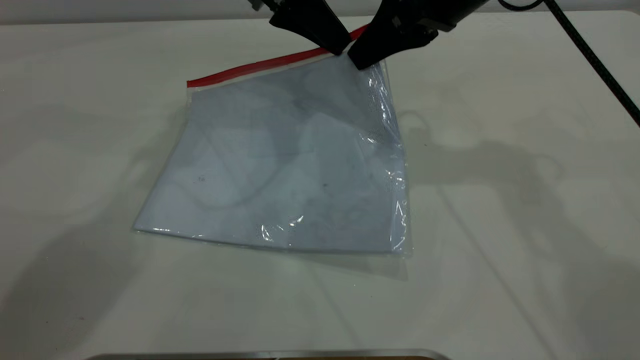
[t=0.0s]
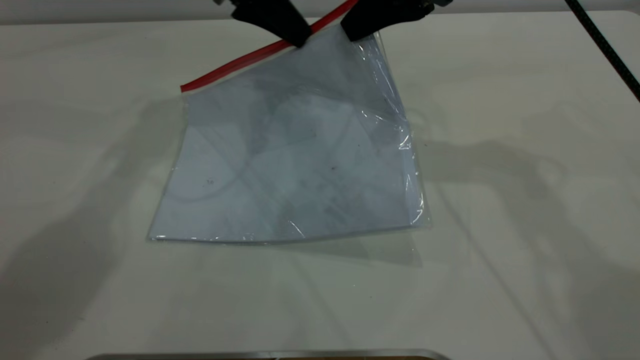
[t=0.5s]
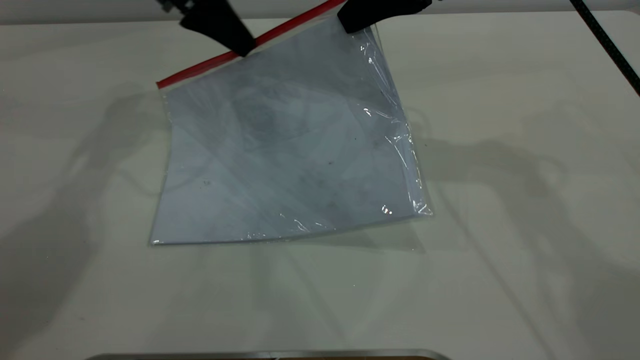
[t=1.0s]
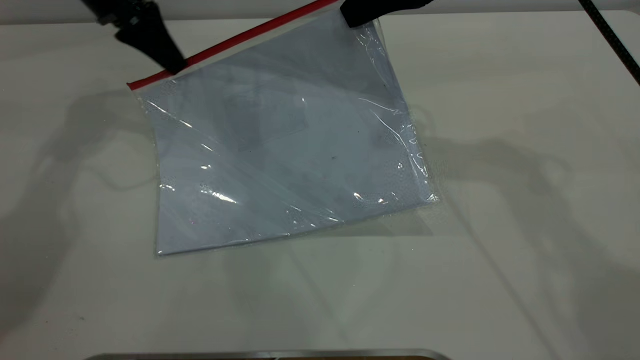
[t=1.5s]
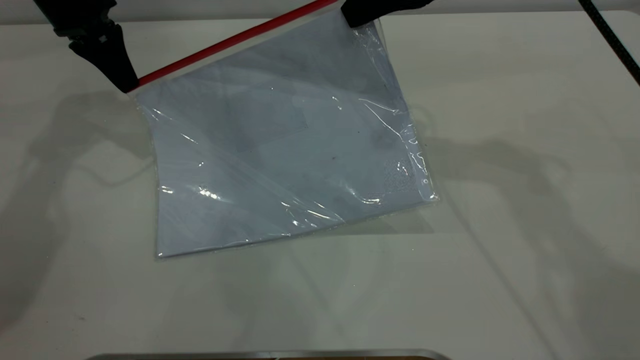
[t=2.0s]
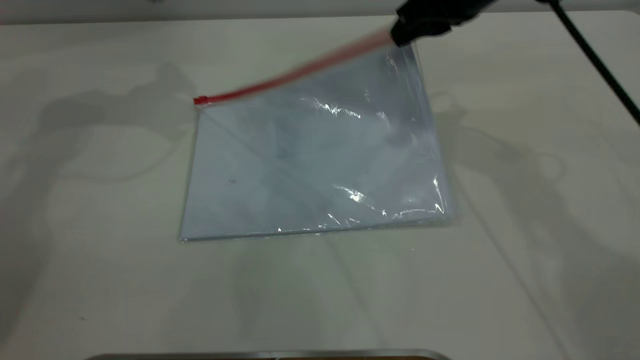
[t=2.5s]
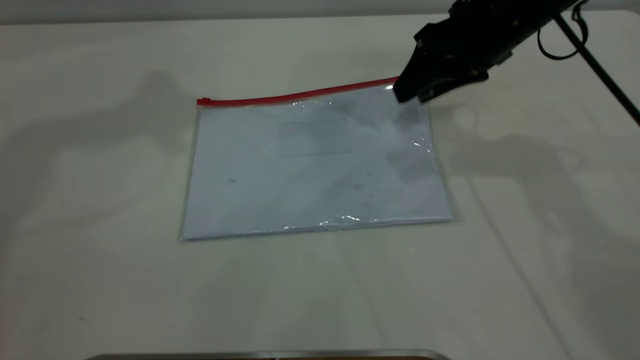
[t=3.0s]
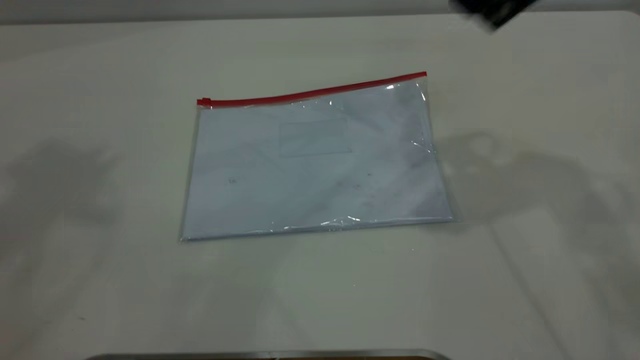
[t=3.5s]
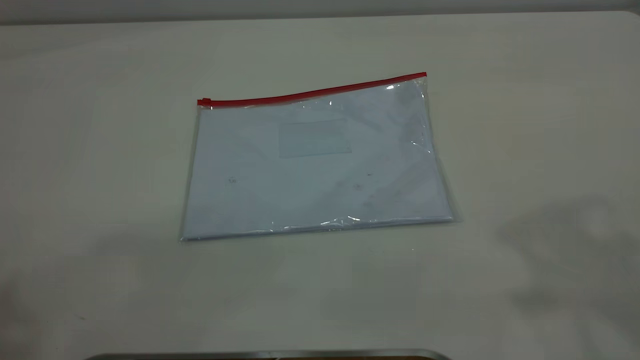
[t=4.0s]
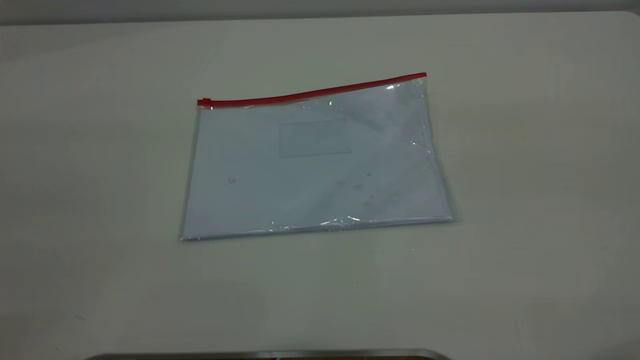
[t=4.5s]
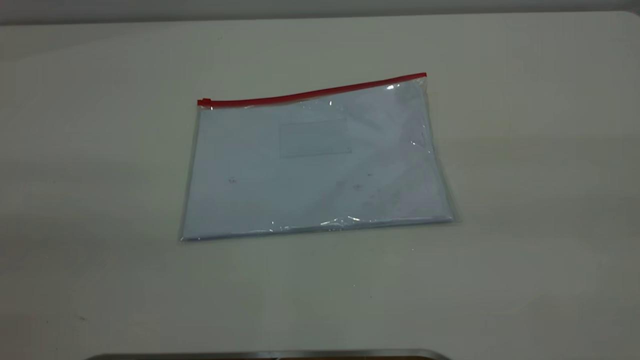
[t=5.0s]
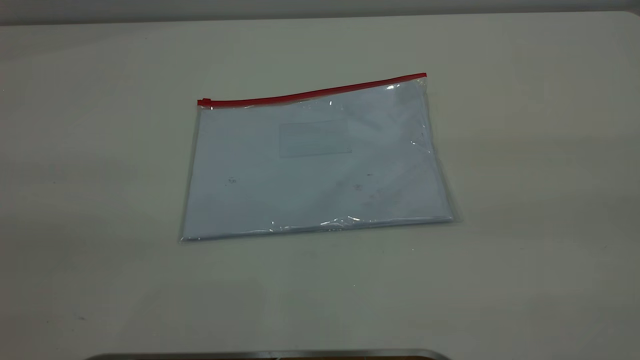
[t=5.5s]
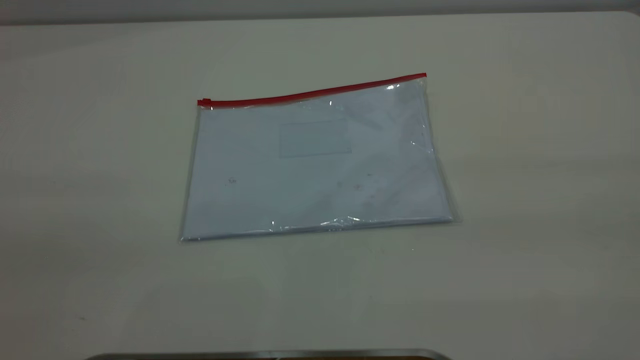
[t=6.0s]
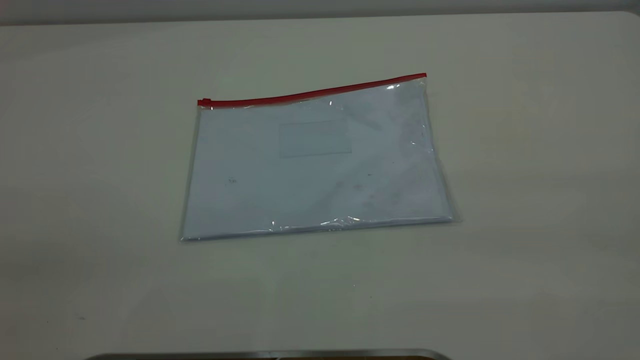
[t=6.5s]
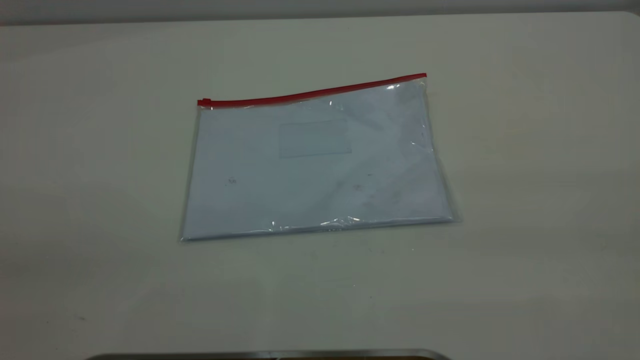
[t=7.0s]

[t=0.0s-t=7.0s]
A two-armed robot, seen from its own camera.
Step, t=0.0s to t=2.0s: Pulling up the zipper on the transparent plastic bag with the left gripper to close it.
Step, t=2.5s to t=3.5s: Place the transparent plastic bag.
t=0.0s to t=2.0s: The left gripper is displaced to the left by about 20 cm.
t=2.0s to t=3.5s: The right gripper heads upward, backward and to the right, covering roughly 10 cm, and opens its fingers, while the left gripper is displaced upward and backward by approximately 50 cm, and opens.
t=3.5s to t=5.0s: The right gripper moves backward, approximately 25 cm.

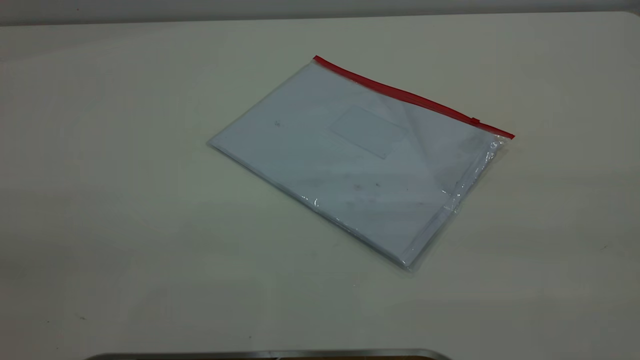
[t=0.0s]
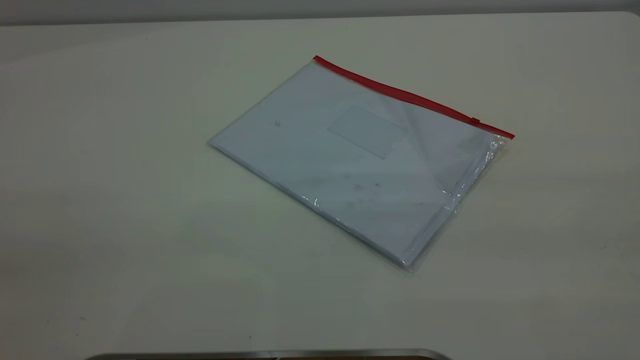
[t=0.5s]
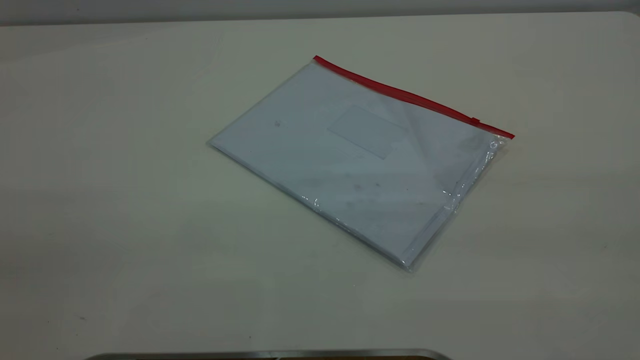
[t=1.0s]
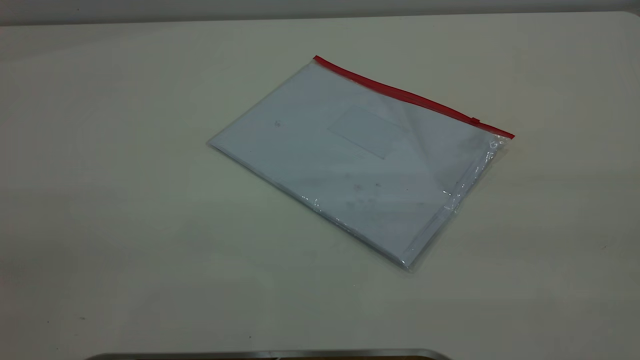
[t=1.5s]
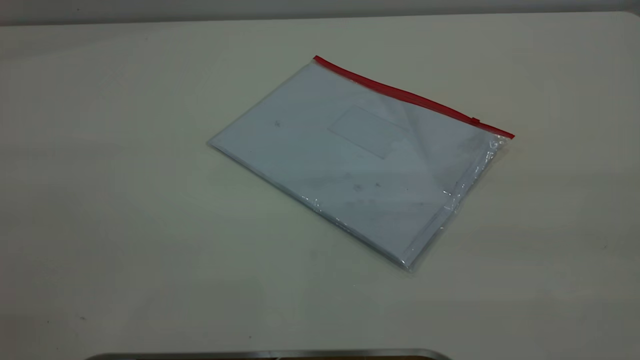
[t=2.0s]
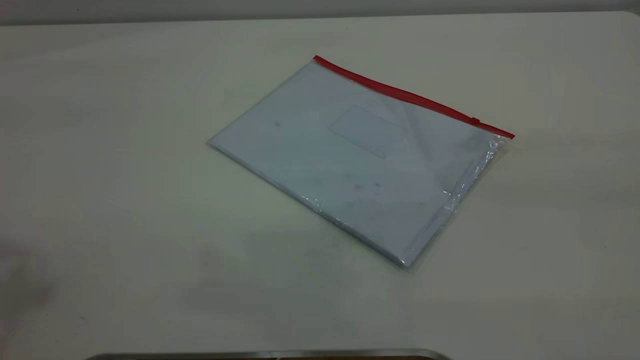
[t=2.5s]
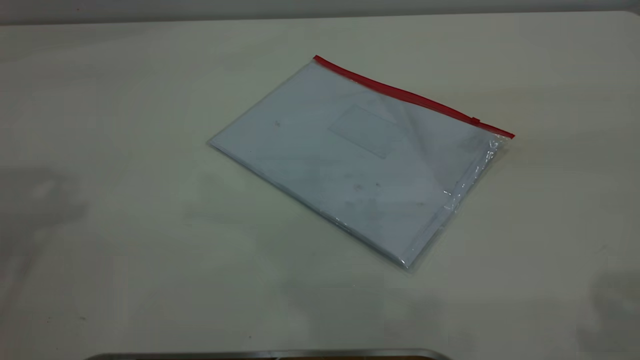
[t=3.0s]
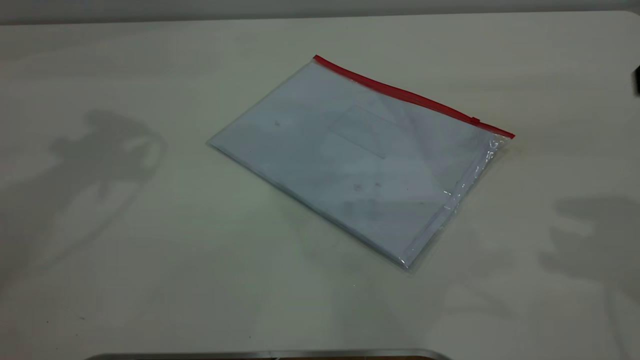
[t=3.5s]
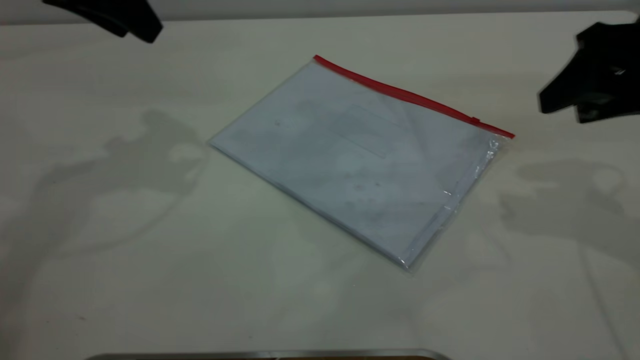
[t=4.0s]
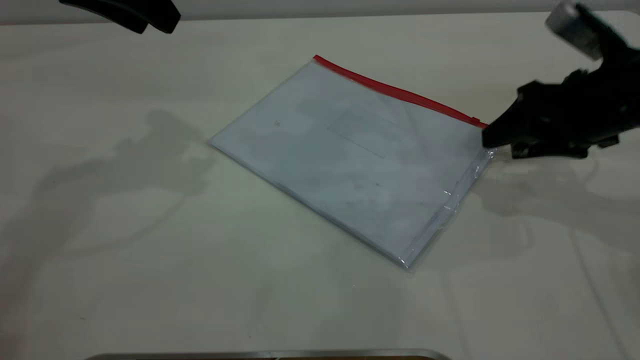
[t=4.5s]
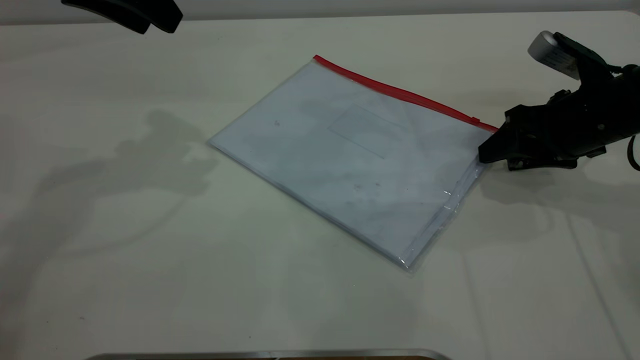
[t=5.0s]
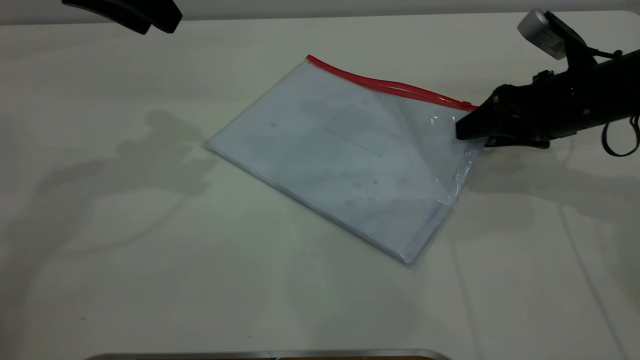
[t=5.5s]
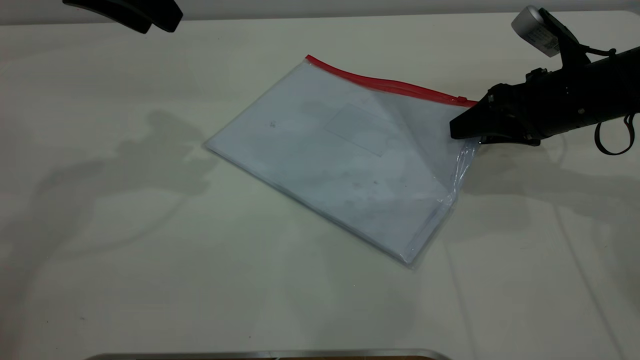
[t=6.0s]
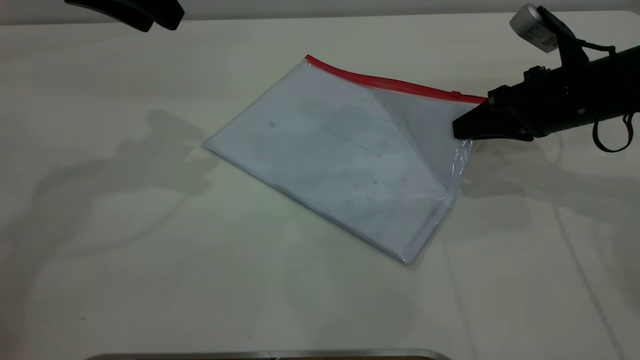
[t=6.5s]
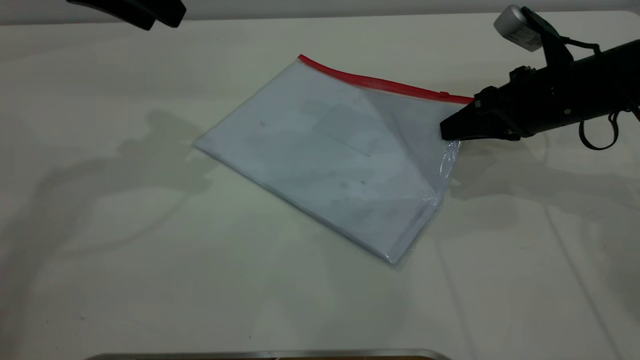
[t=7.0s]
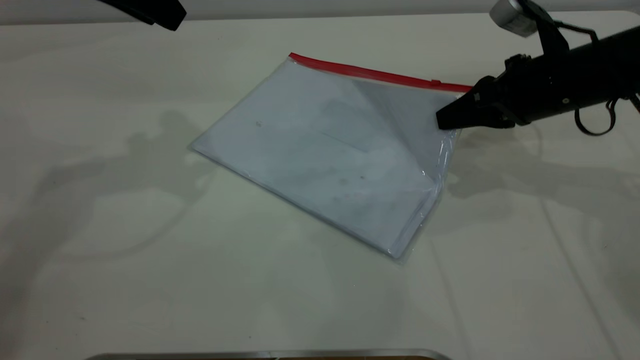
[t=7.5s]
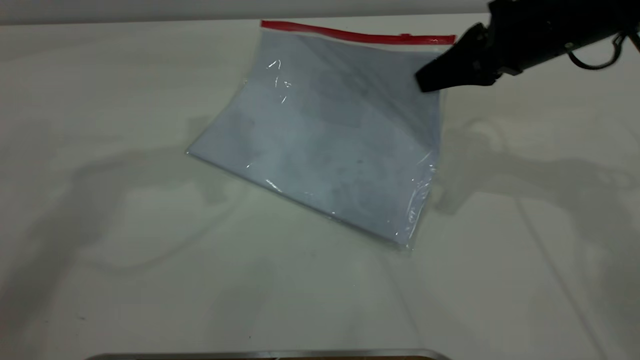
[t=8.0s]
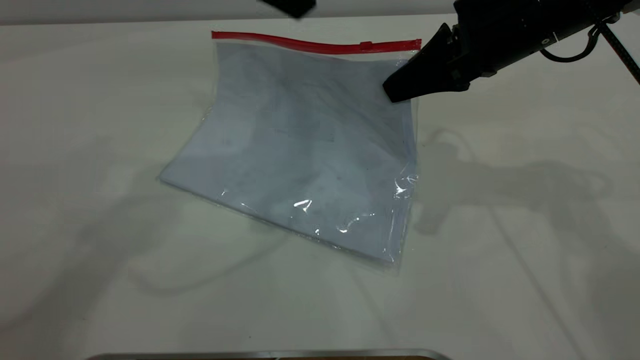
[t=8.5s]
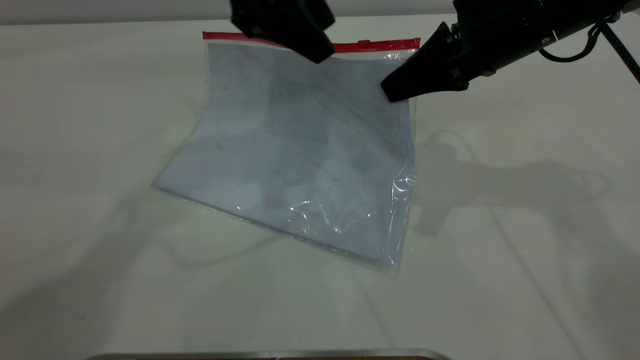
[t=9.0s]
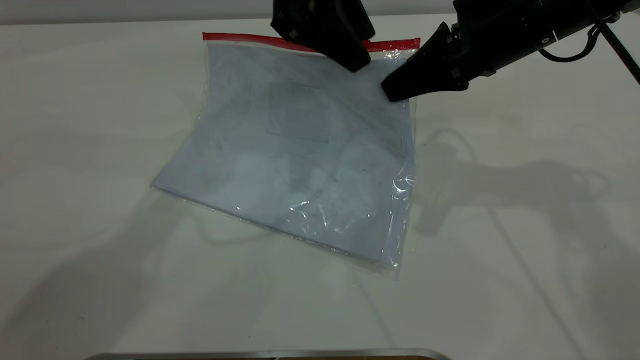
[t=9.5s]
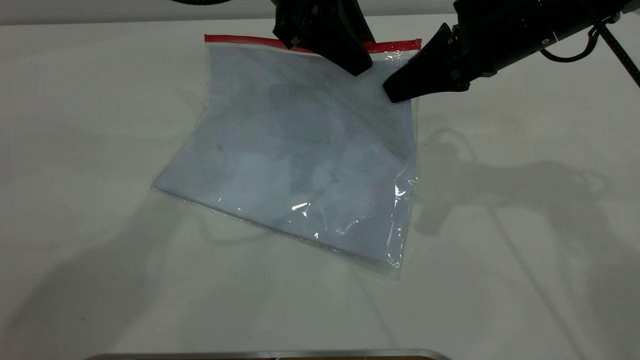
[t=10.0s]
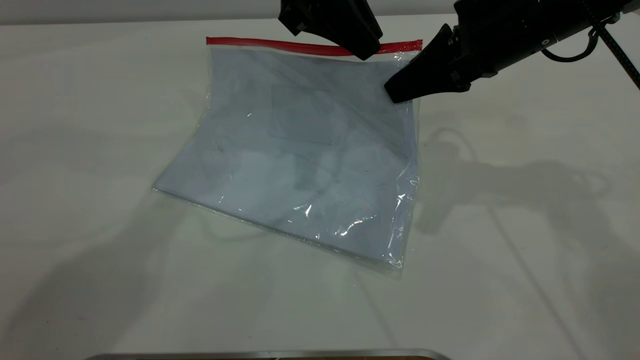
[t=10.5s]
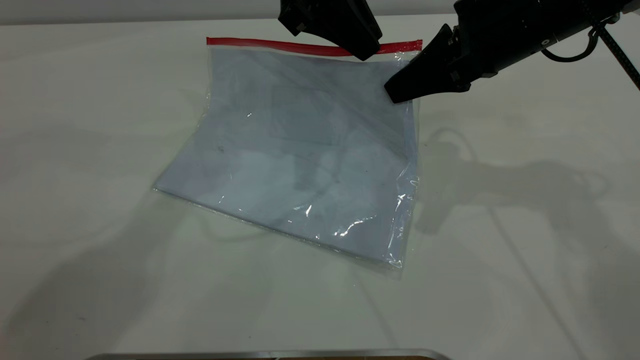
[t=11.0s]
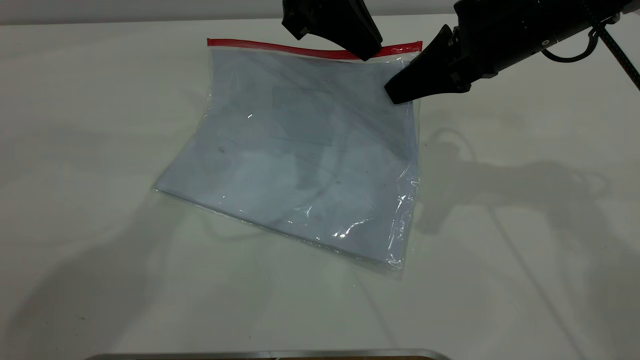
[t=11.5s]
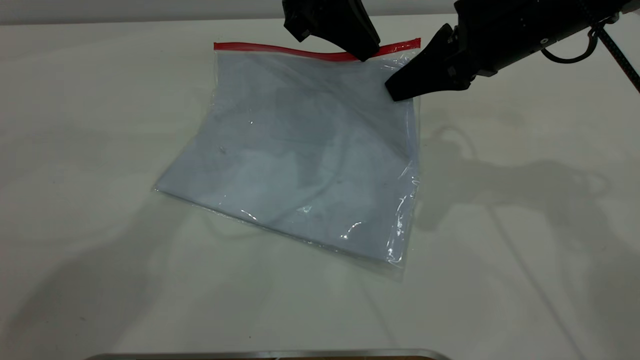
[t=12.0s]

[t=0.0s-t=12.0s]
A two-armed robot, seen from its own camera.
Step, t=0.0s to t=8.0s: Pick up the transparent plastic bag with the right gripper.
t=2.0s to t=4.0s: Both grippers move forward and downward, some 35 cm. The right gripper opens its fingers.
t=4.0s to t=6.0s: The right gripper goes approximately 10 cm downward and forward.
t=6.0s to t=8.0s: The left gripper heads to the right, covering about 5 cm; the right gripper shifts roughly 10 cm upward and to the left, and closes up.
t=8.0s to t=10.0s: The left gripper travels to the right and downward by roughly 15 cm.
t=10.0s to t=12.0s: The left gripper closes.

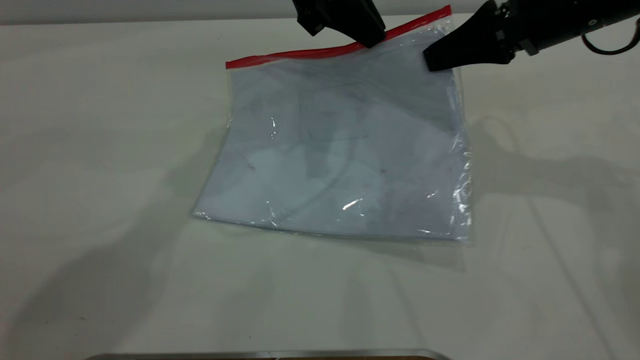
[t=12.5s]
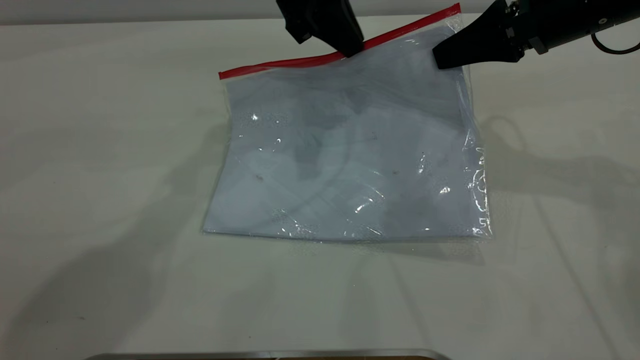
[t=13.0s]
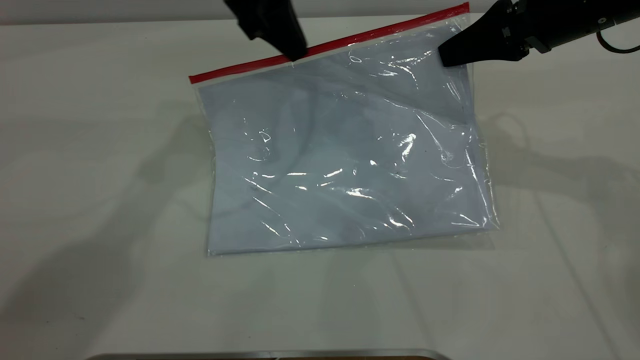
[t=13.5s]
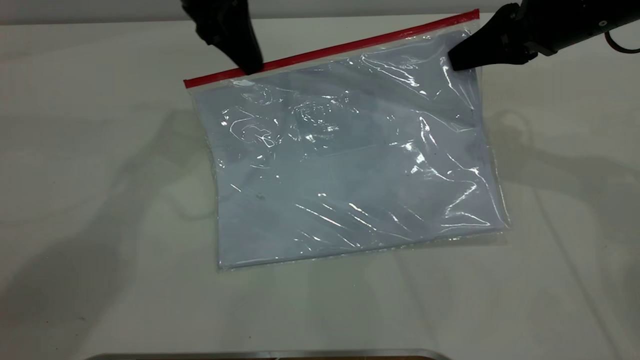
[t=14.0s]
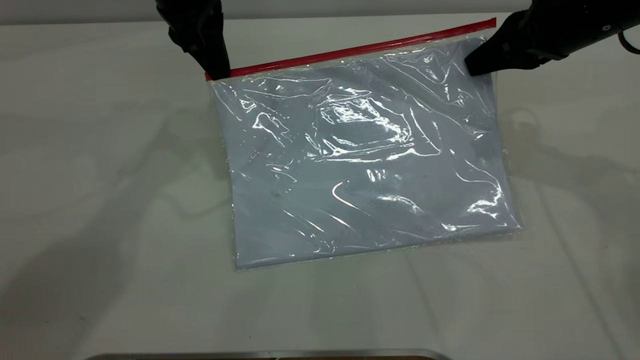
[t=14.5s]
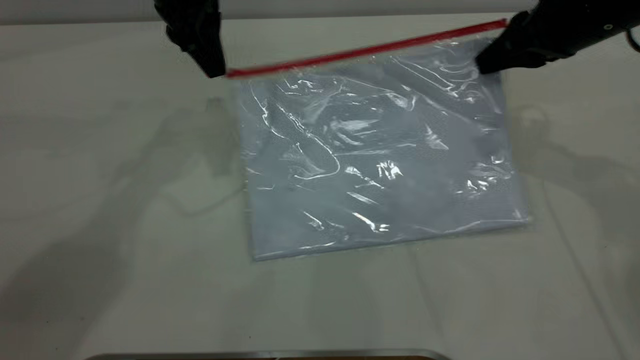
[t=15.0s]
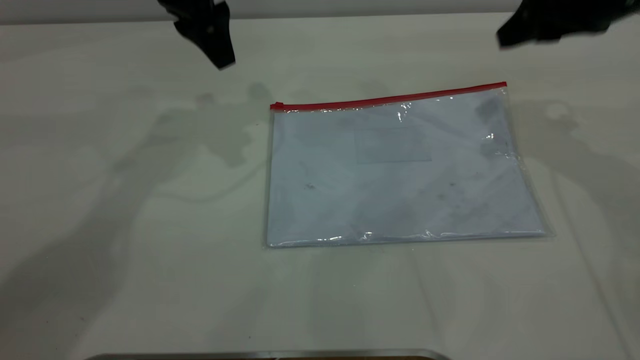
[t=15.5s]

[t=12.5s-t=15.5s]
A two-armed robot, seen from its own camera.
Step, t=12.5s to t=14.5s: Pulling up the zipper on the transparent plastic bag with the left gripper to close it.
t=12.5s to t=14.0s: The left gripper goes some 10 cm to the left.
t=14.0s to t=15.5s: The left gripper opens, while the right gripper moves roughly 5 cm, and opens up.
